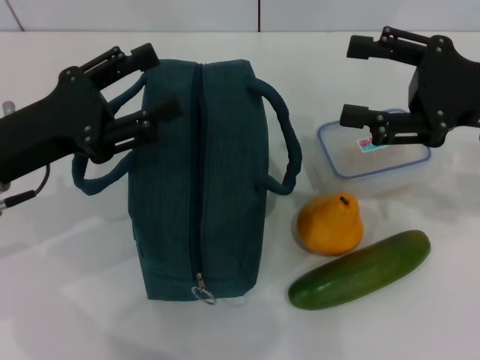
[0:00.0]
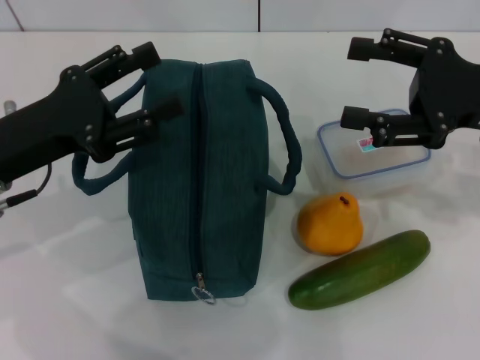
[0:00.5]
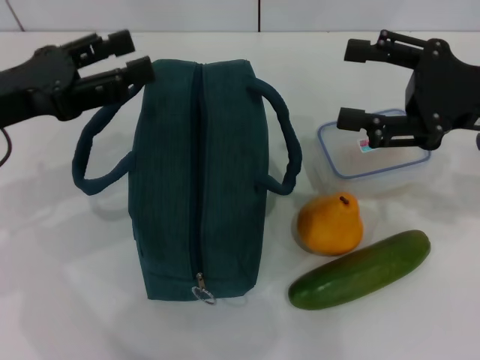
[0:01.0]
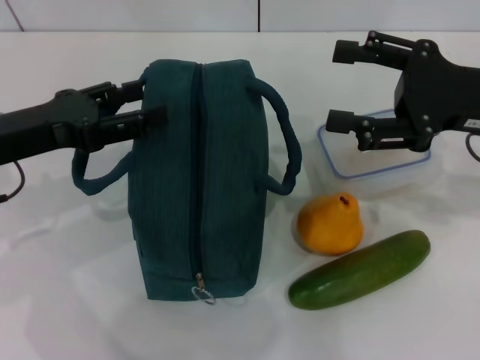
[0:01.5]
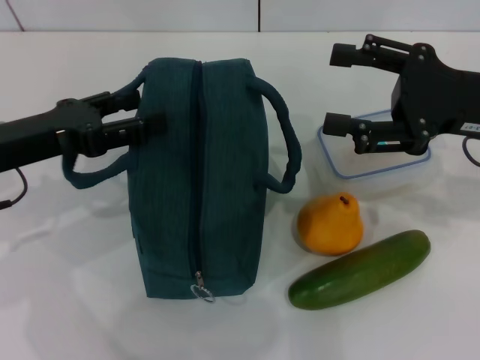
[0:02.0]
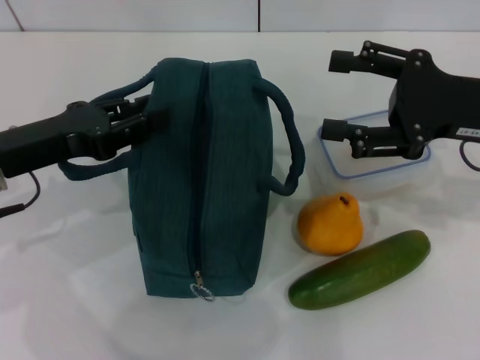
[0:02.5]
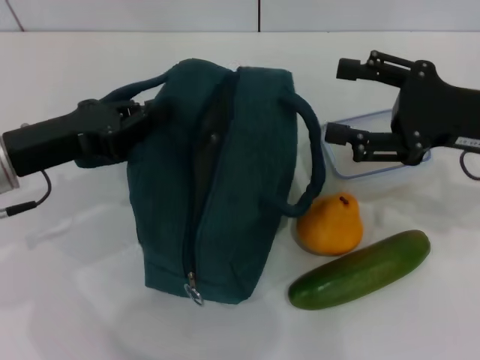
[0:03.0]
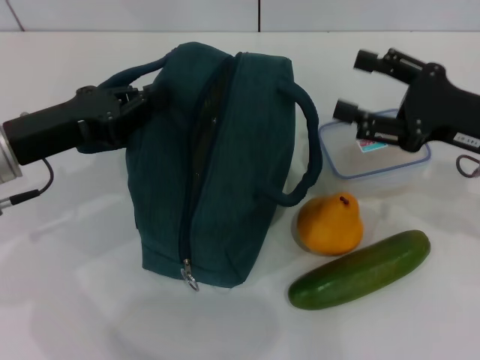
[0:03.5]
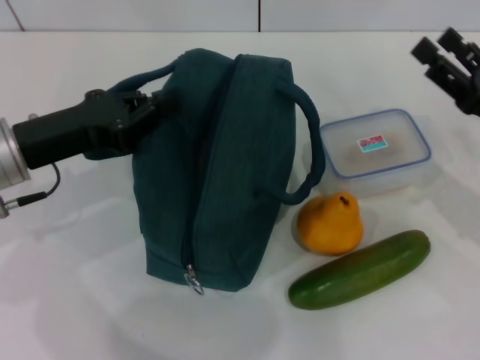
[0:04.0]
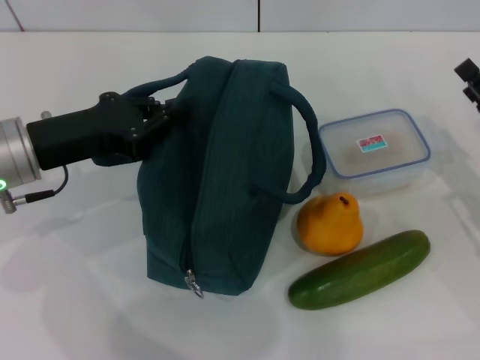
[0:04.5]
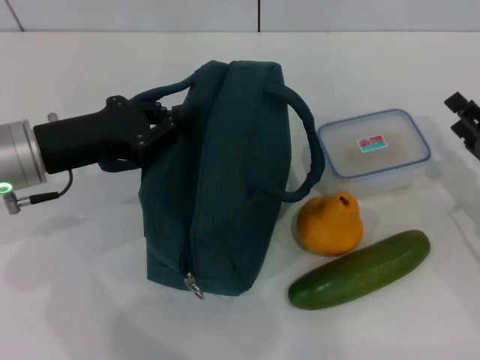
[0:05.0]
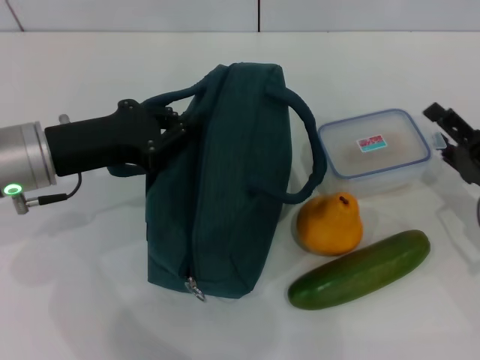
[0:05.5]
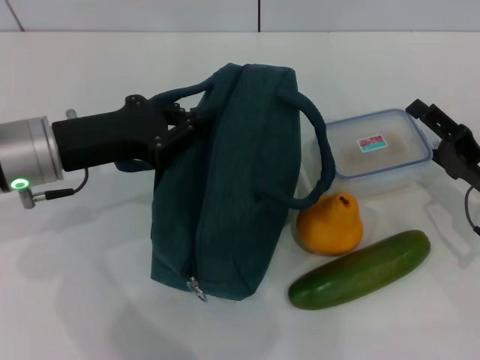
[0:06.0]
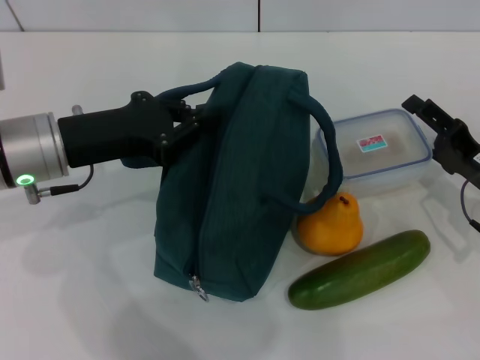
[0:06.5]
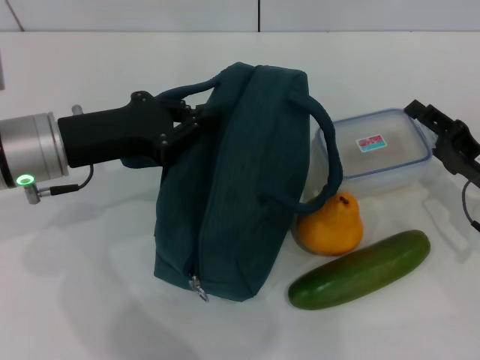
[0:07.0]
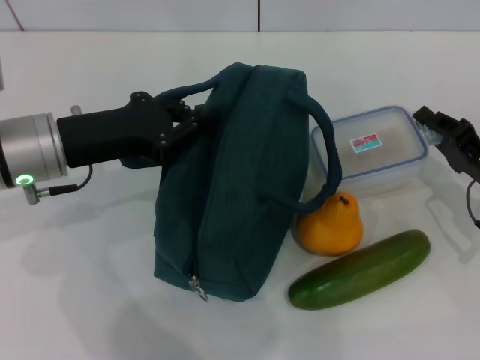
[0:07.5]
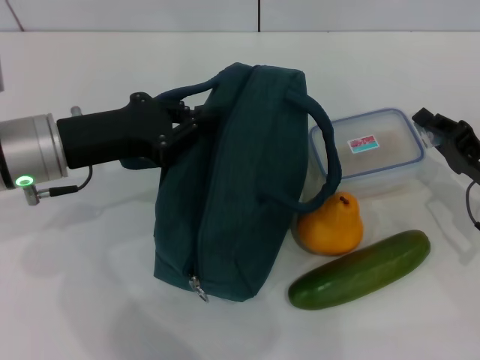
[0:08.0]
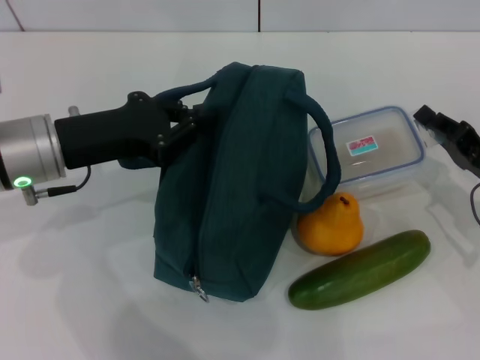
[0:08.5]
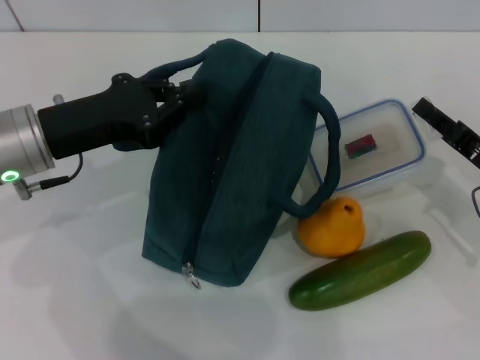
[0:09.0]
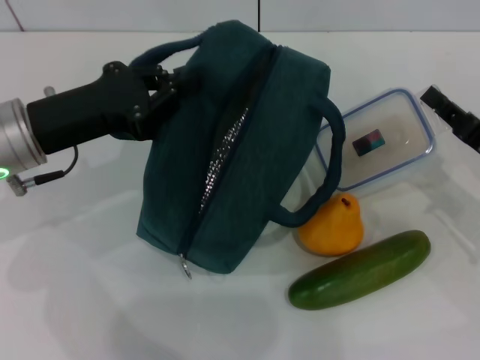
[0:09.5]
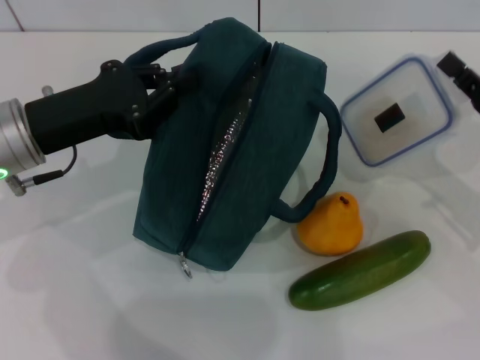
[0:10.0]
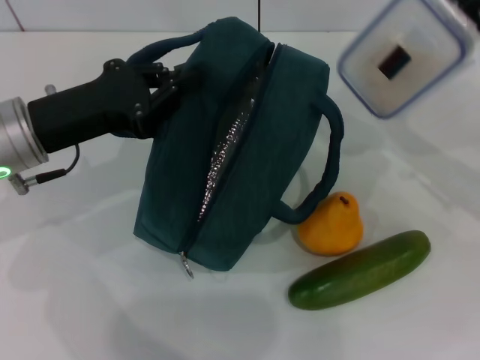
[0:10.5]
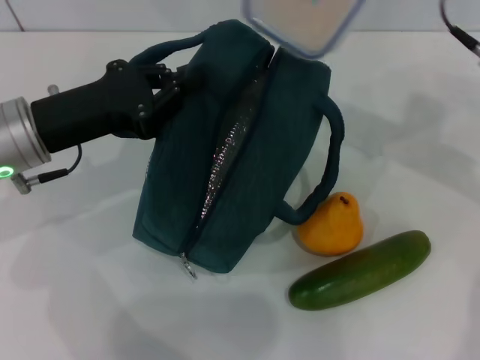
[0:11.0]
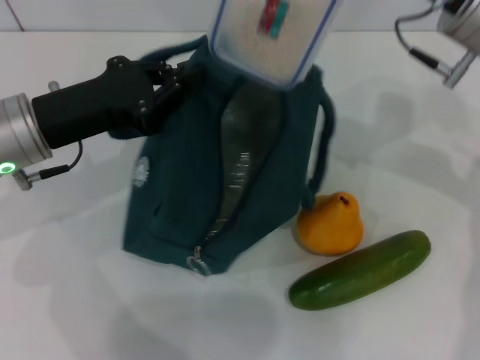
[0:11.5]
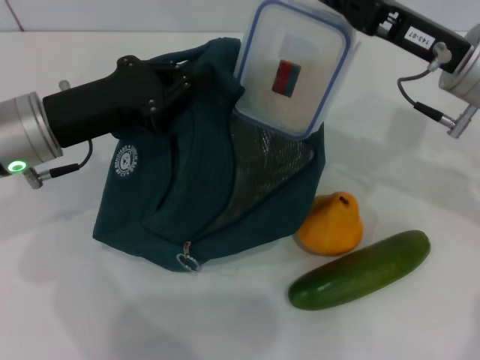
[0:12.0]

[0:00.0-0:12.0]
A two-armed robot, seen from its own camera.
Step, 0:00.0 to 0:03.5: Hold the lunch bag with your left hand.
Step, 0:04.5 to 0:09.0: Pick up the lunch box with your right hand.
0:02.0 to 0:04.0: The left gripper closes up, while the right gripper shifts about 10 cm downward.
0:04.0 to 0:06.0: The right gripper heads downward, covering roughly 5 cm.
0:06.0 to 0:08.0: The right gripper closes up.
0:10.0 to 0:12.0: The right gripper travels to the left, upward and forward by some 15 cm.

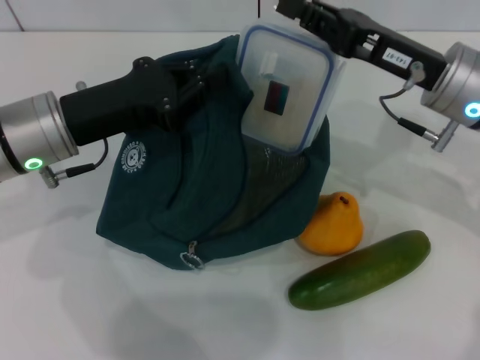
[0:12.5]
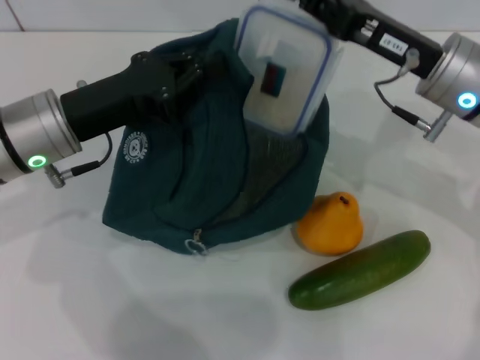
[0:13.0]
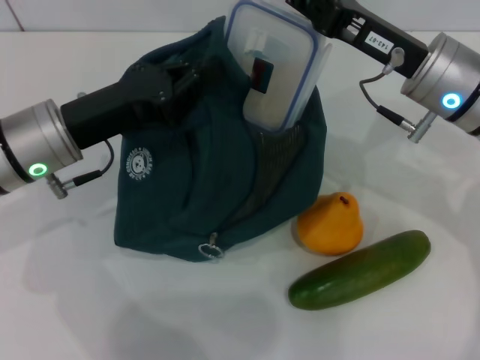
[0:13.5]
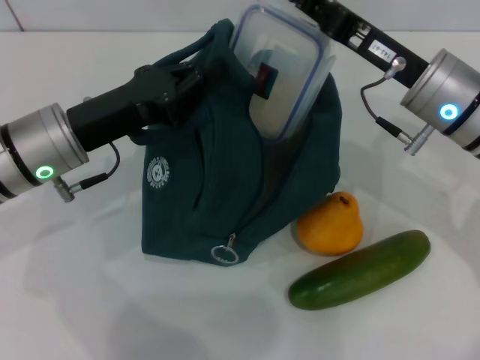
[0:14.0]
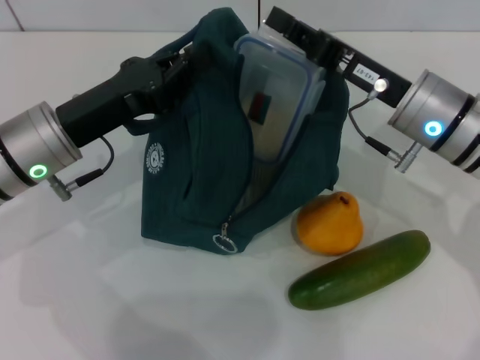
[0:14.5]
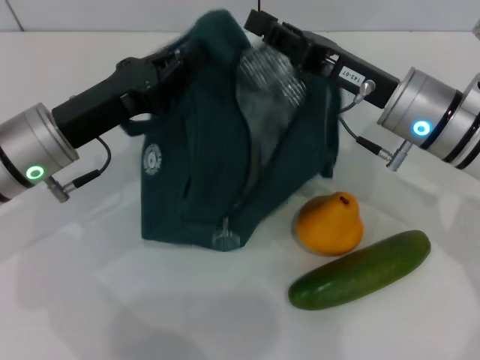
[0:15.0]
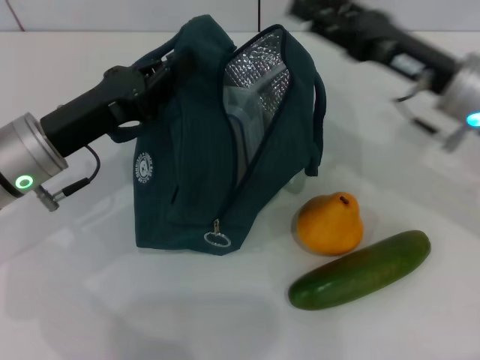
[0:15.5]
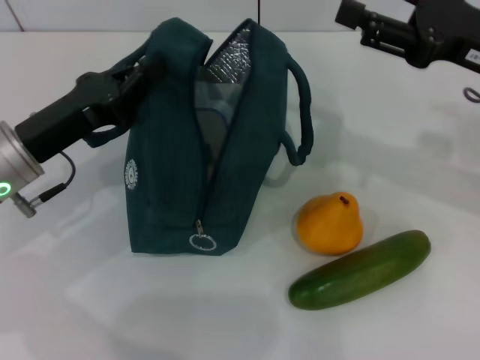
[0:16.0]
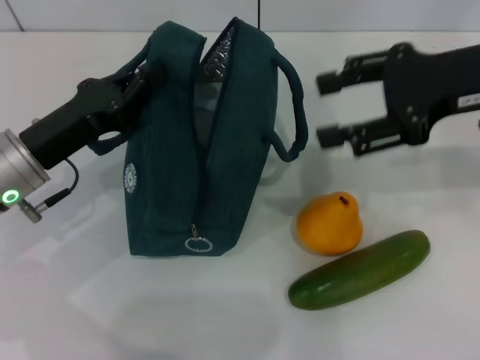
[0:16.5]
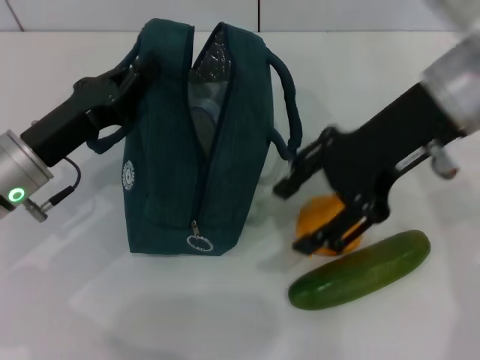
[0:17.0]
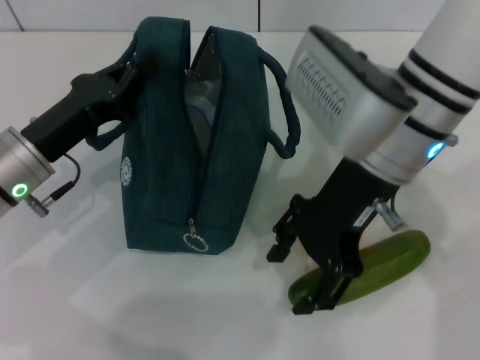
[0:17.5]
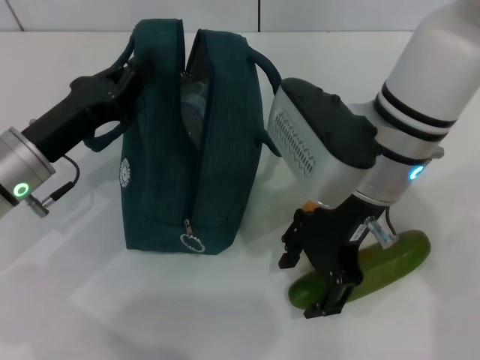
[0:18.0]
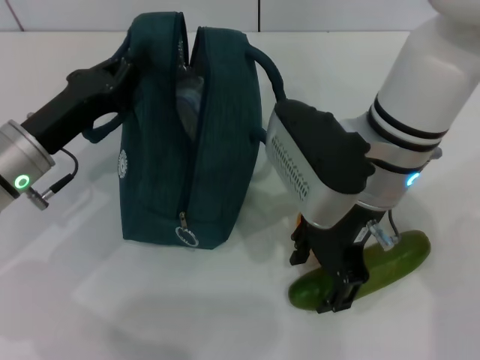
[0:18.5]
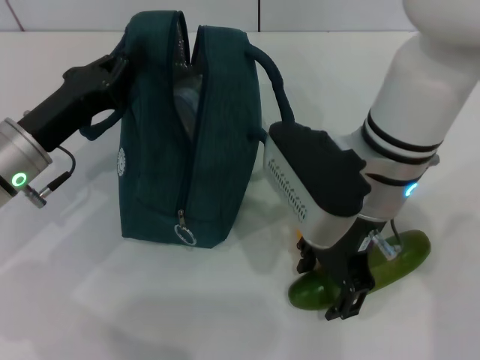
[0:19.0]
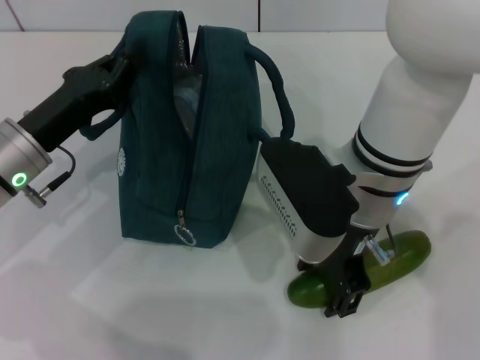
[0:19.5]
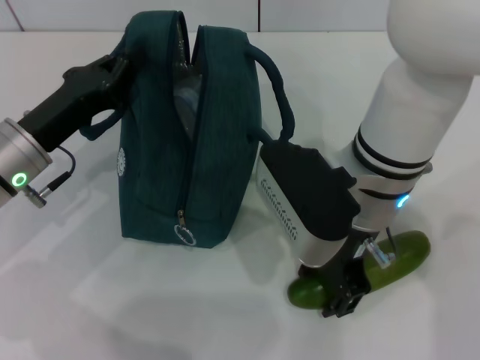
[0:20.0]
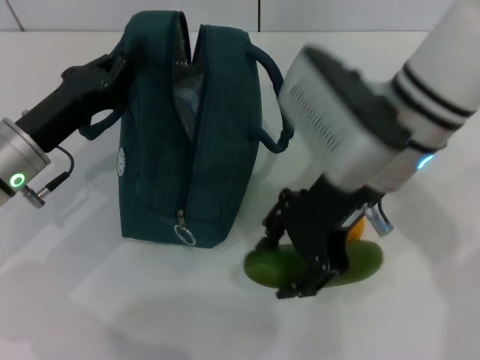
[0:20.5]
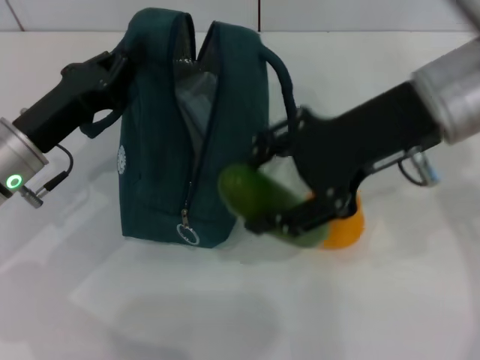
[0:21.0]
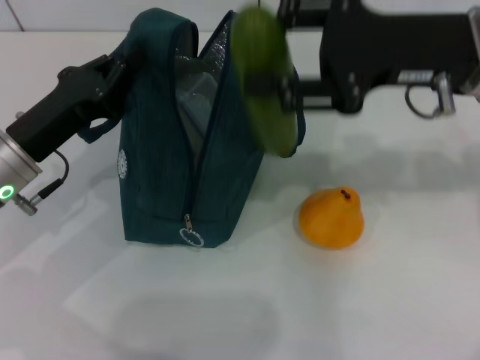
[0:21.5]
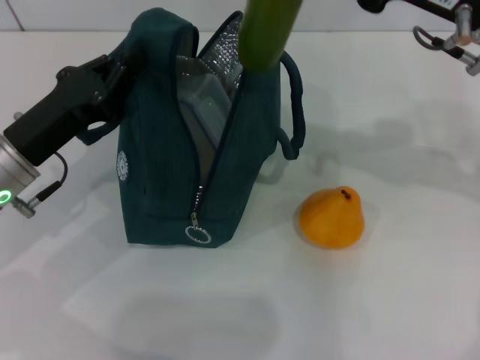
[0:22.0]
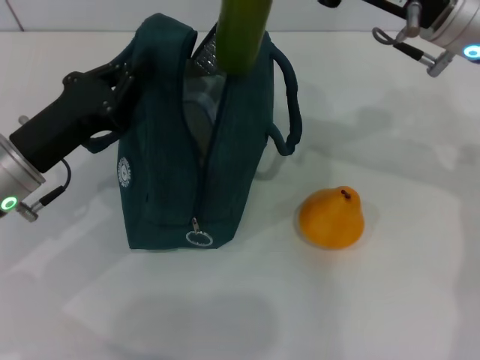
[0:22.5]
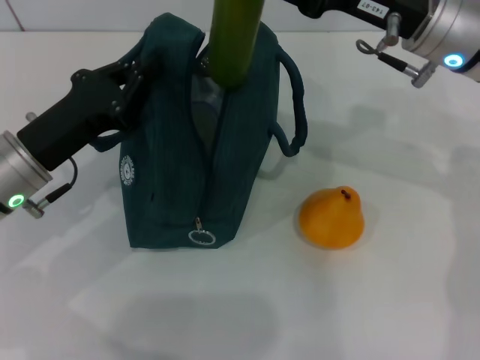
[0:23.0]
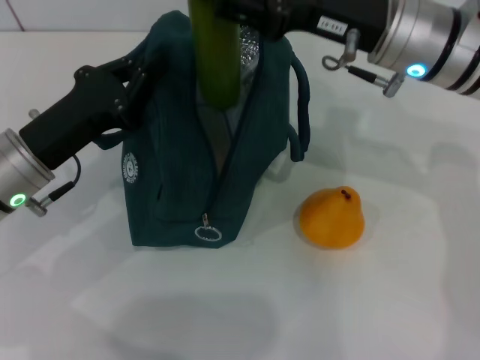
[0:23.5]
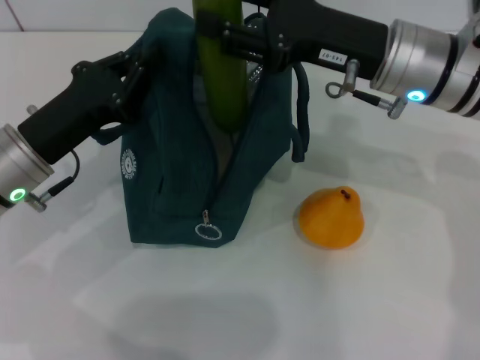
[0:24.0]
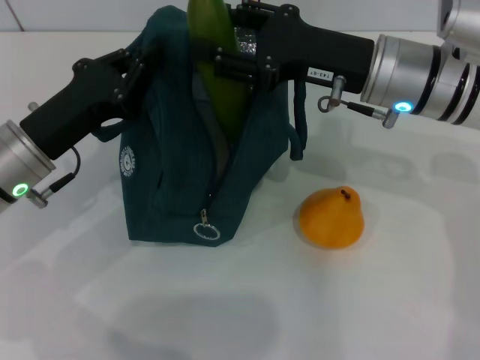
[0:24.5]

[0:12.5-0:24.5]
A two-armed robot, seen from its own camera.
Step, 0:12.5 to 0:15.0: Place the lunch box into the lunch bag with your right hand.
Step, 0:15.5 to 0:20.0: Pick up the cucumber with your right hand.
0:14.5 to 0:16.5: The right gripper moves upward and to the right, about 15 cm, and opens.
0:16.5 to 0:18.5: The right gripper moves to the left and downward, approximately 15 cm.
0:20.5 to 0:22.5: The right gripper is displaced to the right and forward by some 10 cm.
0:22.5 to 0:24.5: The right gripper shifts by roughly 5 cm.

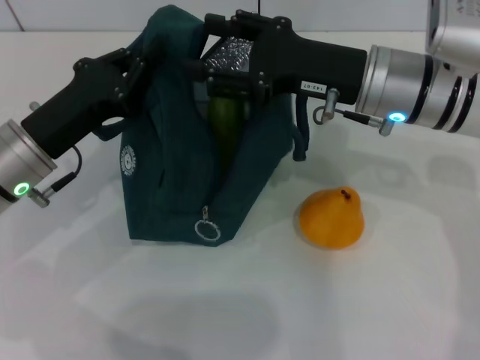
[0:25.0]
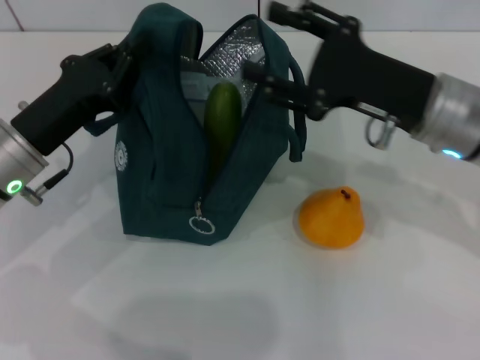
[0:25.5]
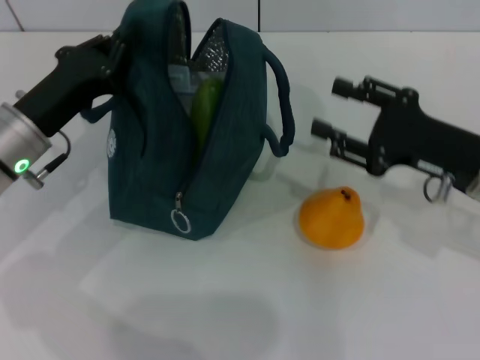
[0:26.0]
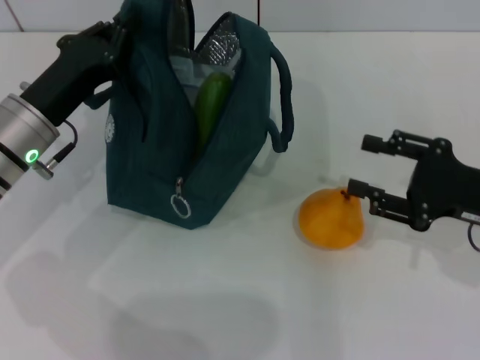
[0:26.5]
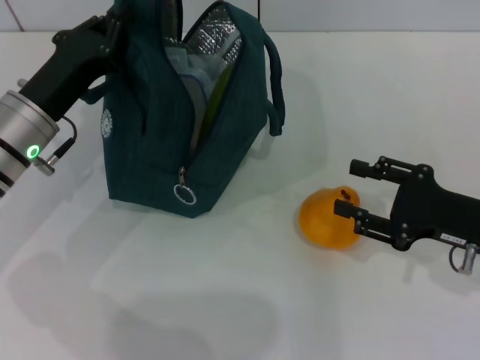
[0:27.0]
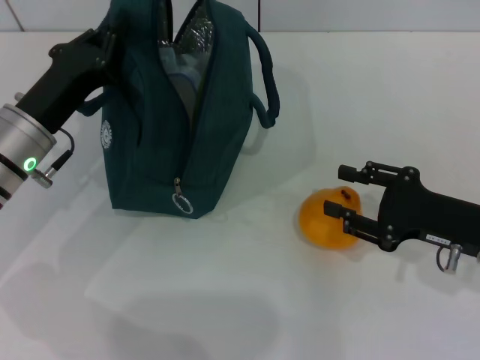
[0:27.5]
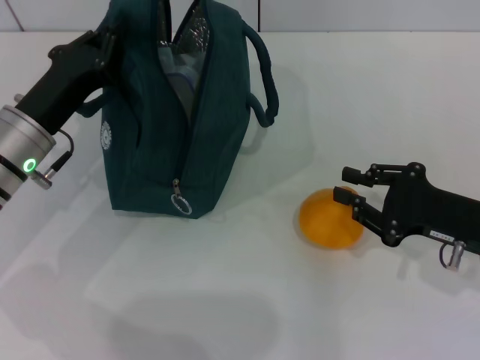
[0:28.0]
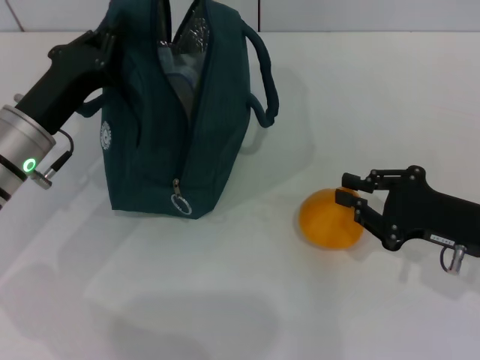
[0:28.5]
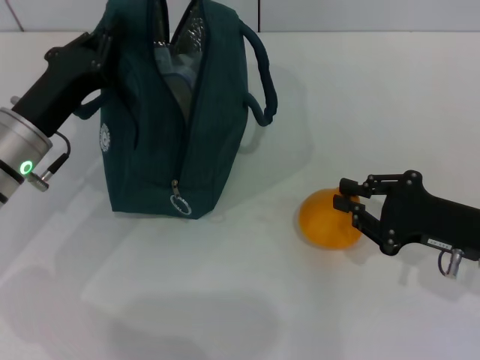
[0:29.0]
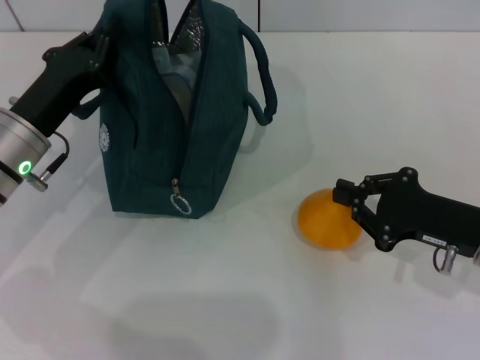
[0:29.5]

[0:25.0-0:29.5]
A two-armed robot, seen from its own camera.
0:25.0 to 0:27.0: The right gripper is displaced to the right, backward and downward by approximately 20 cm.
0:27.0 to 0:29.5: The right gripper closes its fingers.
